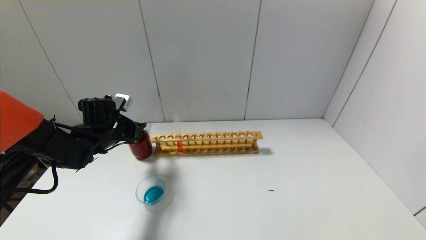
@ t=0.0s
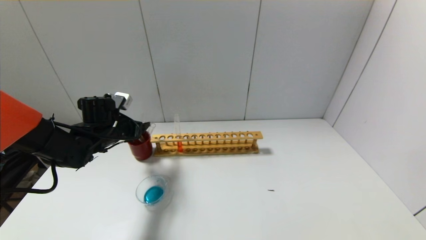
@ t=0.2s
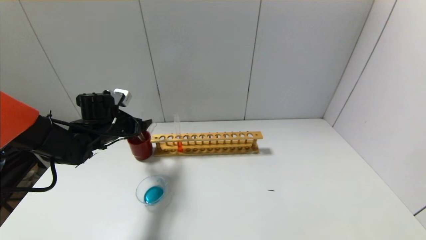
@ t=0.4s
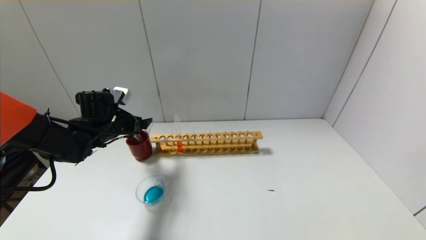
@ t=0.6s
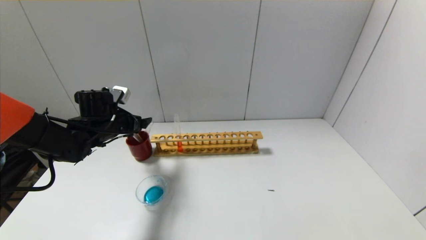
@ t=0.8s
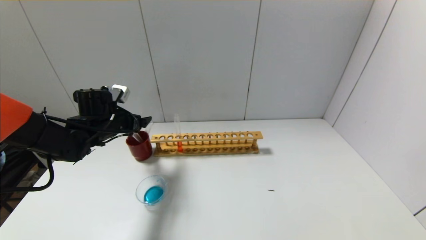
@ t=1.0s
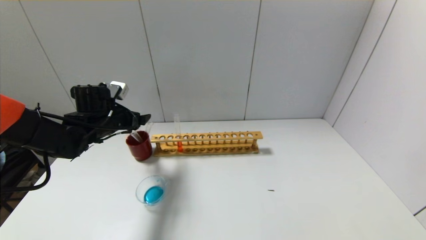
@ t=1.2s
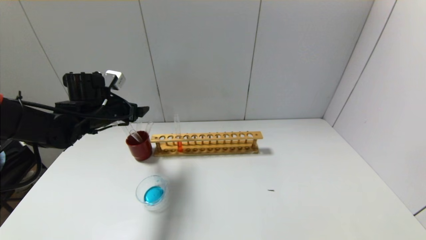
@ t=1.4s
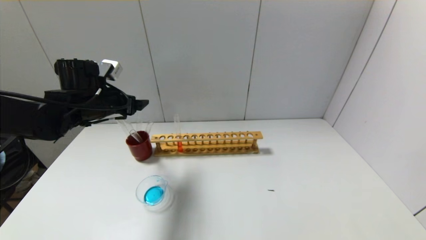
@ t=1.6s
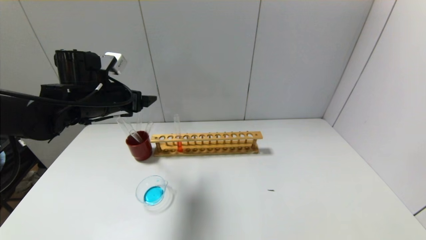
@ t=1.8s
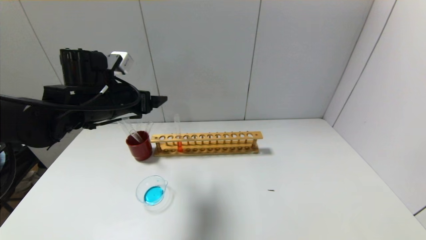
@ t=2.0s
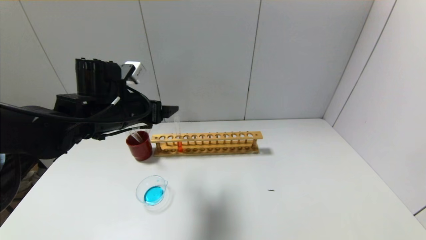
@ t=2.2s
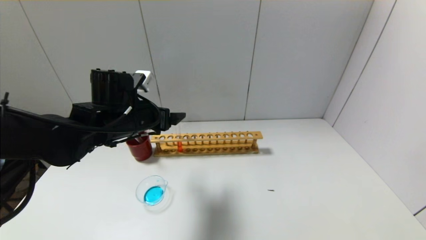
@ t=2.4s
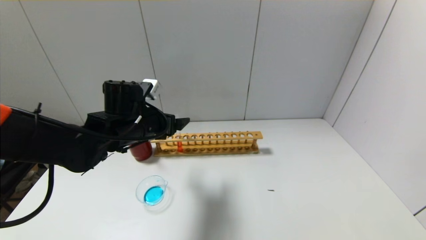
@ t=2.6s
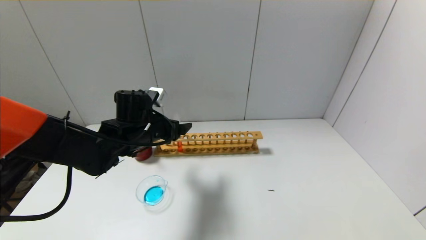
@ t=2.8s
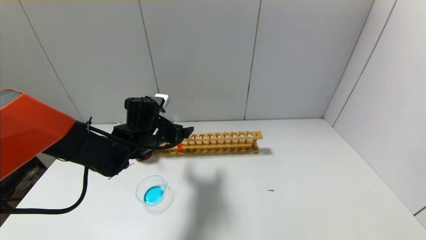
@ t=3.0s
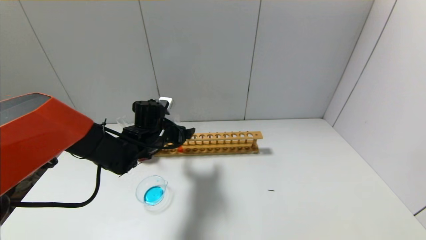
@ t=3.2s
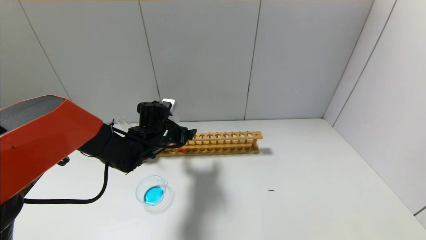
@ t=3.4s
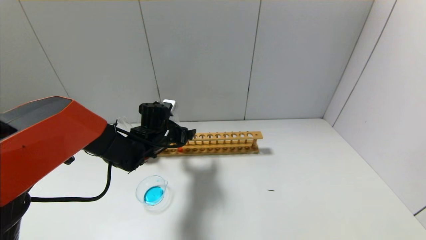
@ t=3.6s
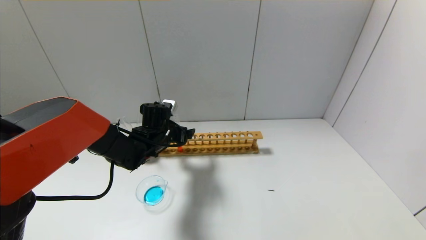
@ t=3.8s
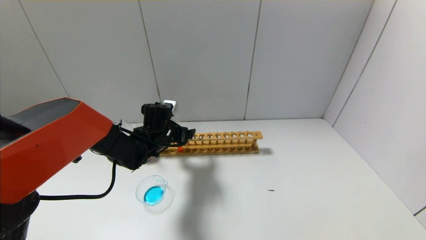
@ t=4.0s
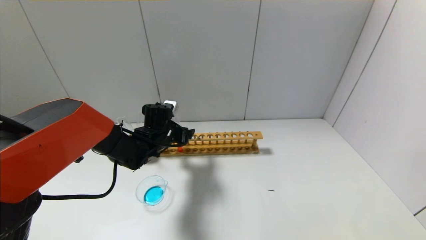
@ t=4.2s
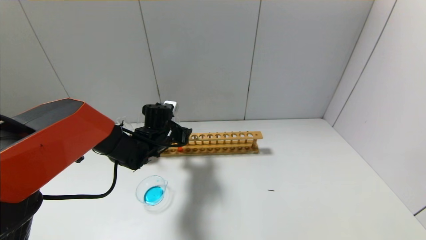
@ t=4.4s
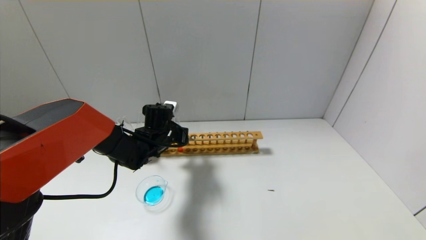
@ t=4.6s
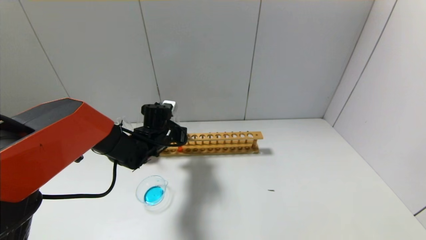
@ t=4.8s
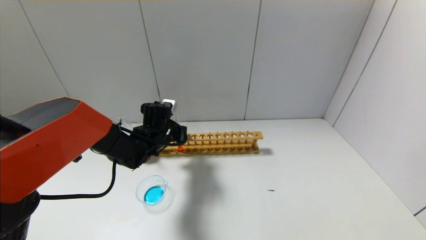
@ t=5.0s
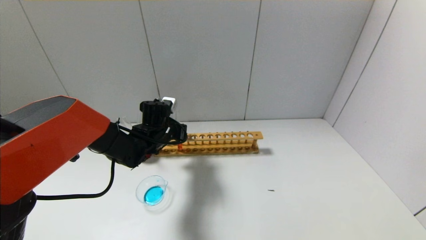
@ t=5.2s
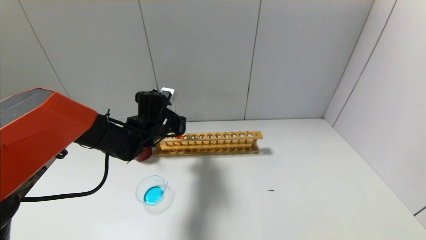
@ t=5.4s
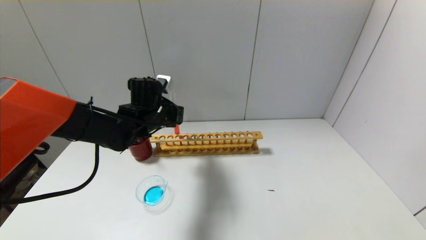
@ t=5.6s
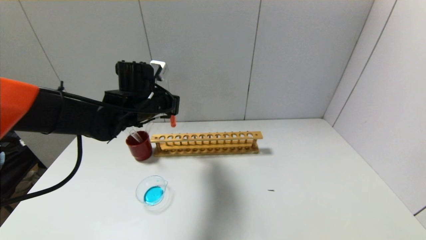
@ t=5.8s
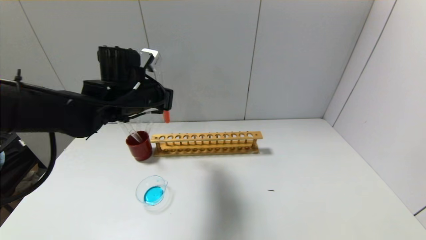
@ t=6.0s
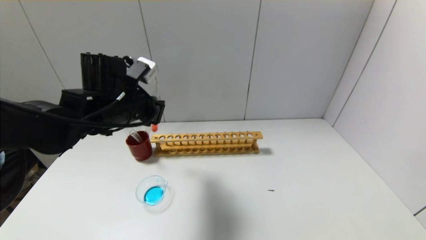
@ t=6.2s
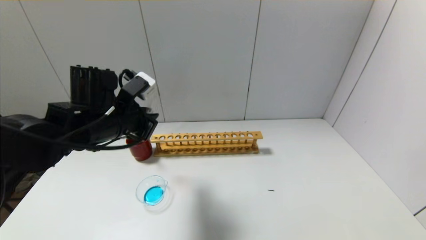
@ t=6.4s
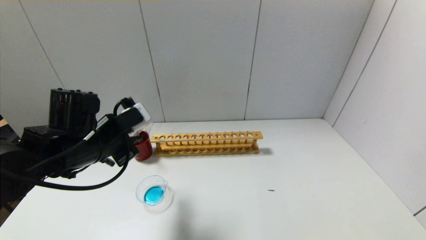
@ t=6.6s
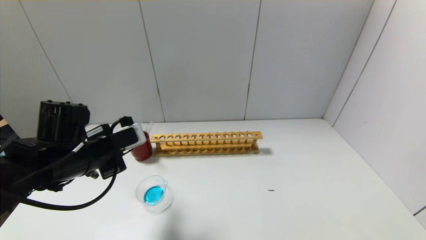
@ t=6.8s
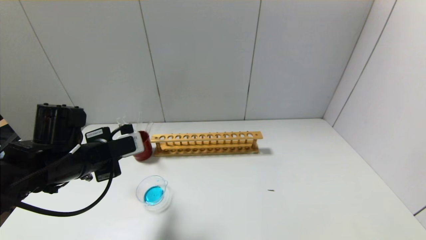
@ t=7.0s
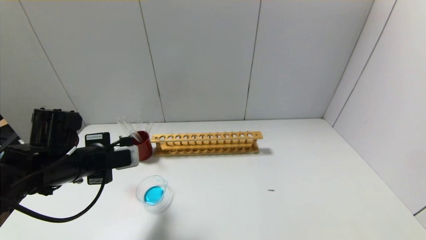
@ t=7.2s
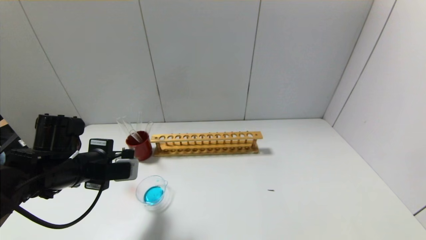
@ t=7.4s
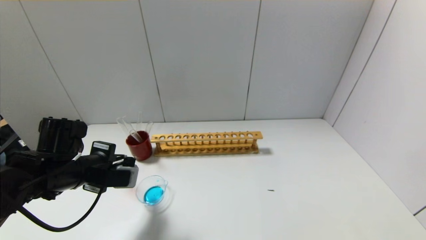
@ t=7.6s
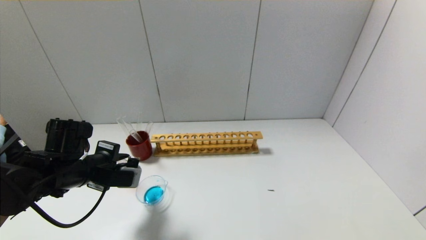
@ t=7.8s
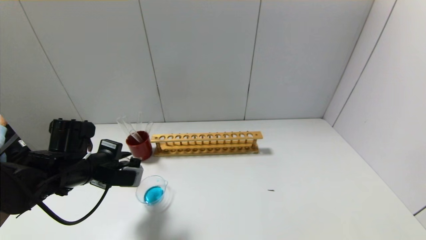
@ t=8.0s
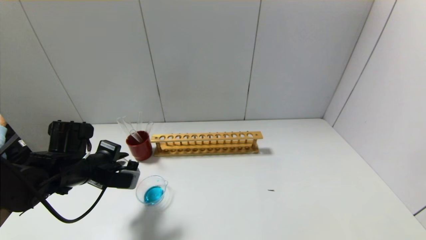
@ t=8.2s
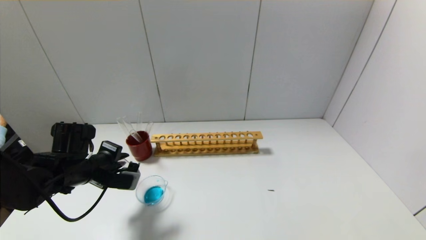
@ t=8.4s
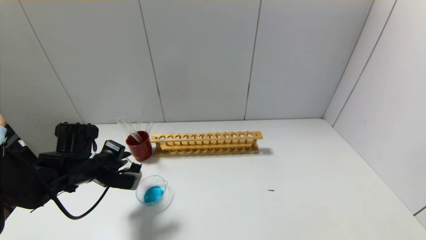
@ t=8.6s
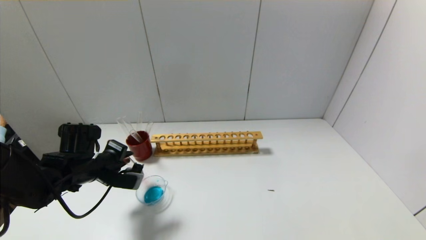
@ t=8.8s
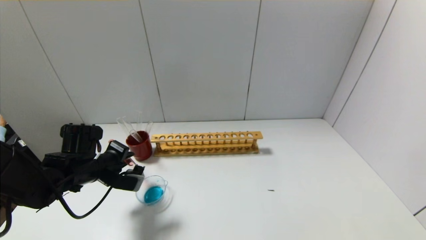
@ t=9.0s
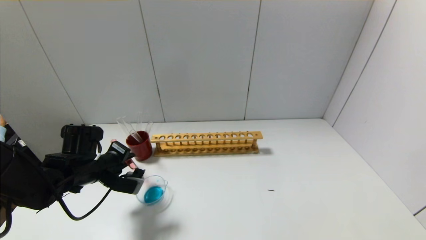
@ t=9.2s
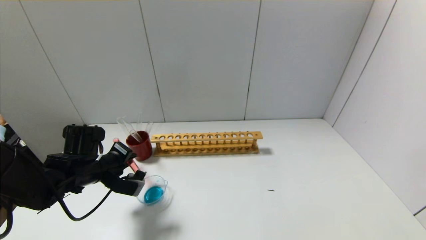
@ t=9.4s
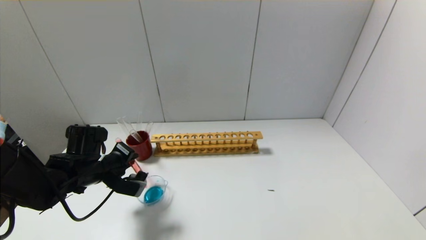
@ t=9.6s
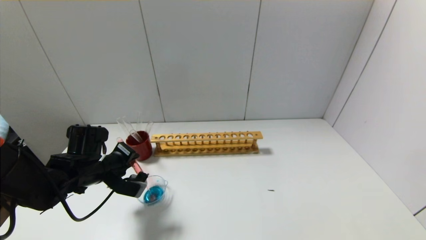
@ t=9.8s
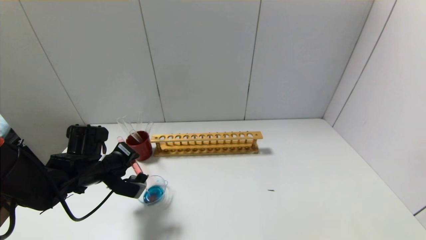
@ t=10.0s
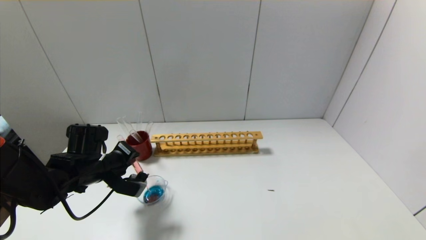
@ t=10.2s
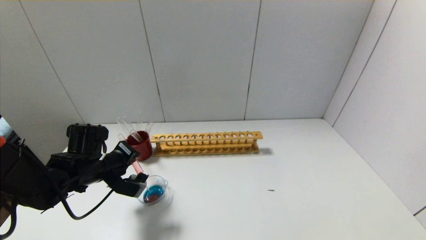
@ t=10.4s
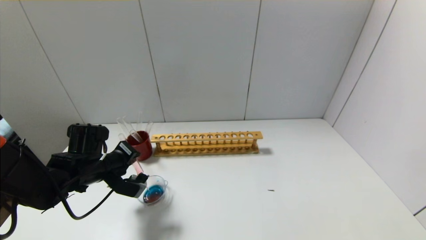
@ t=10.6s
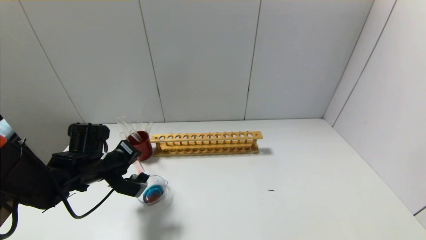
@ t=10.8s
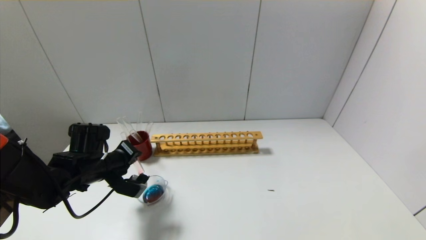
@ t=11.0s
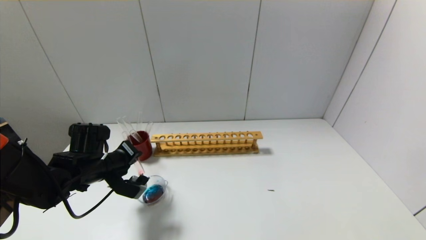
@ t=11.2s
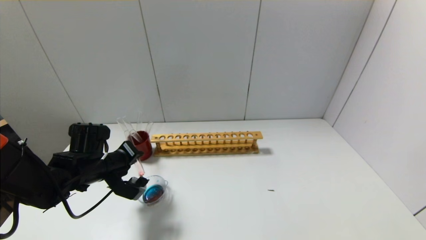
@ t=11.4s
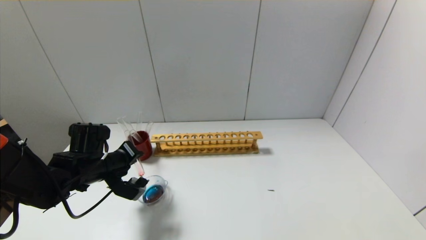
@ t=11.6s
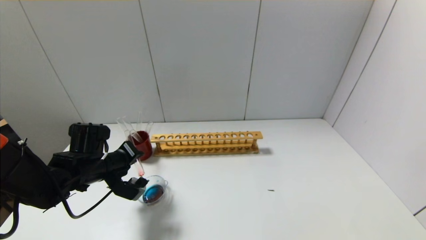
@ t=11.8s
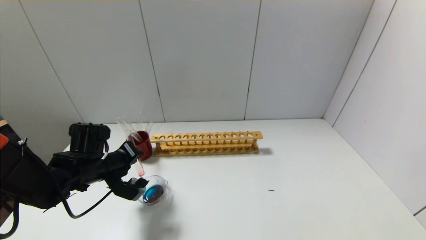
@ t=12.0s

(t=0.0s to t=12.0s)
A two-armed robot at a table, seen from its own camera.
Step, t=0.0s - t=4.8s: Grasp the red reagent with the left gripper.
t=0.0s - t=1.6s: The left gripper goes approximately 10 cm upward, and opens.
t=1.6s - t=3.0s: The left gripper shifts about 15 cm to the right and downward.
t=3.0s - t=4.4s: The left gripper ends up about 5 cm from where it was.
t=4.4s - t=6.0s: The left gripper moves upward, about 15 cm, and closes its fingers.
t=6.0s - t=7.6s: The left gripper travels downward, to the left and backward by some 15 cm.
t=7.6s - t=9.0s: The left gripper moves approximately 5 cm.
t=9.0s - t=10.4s: There are only small adjustments of the grippers.
t=10.4s - t=12.0s: There are only small adjustments of the grippers.

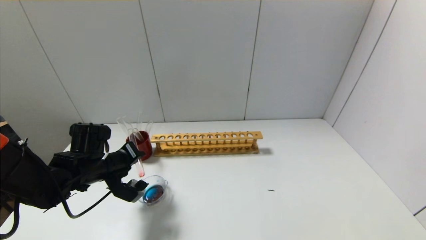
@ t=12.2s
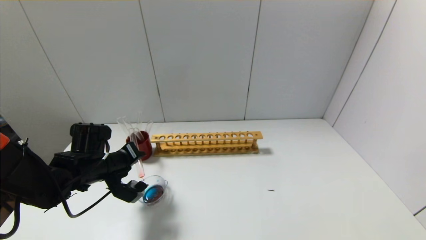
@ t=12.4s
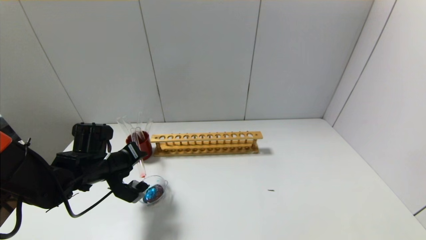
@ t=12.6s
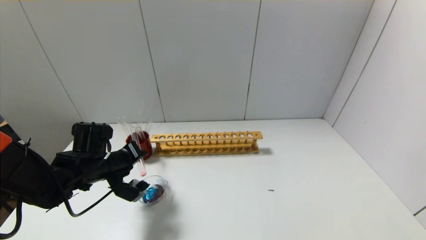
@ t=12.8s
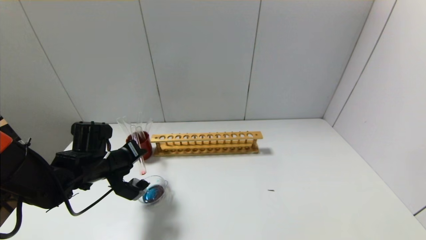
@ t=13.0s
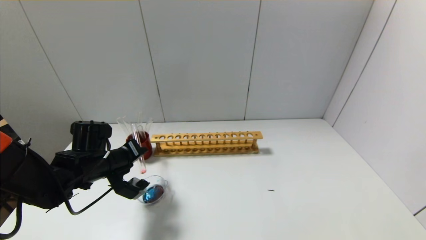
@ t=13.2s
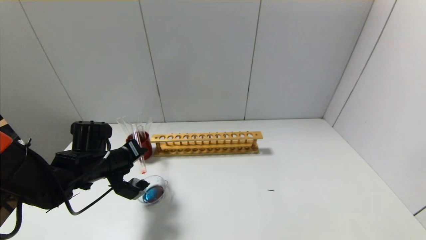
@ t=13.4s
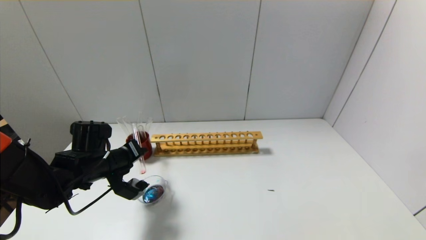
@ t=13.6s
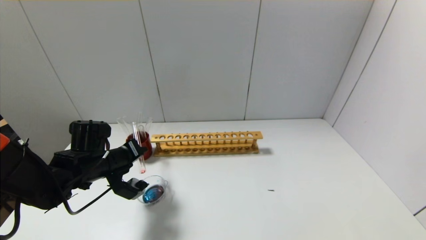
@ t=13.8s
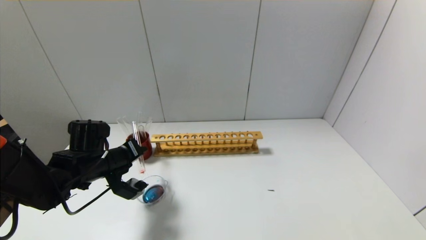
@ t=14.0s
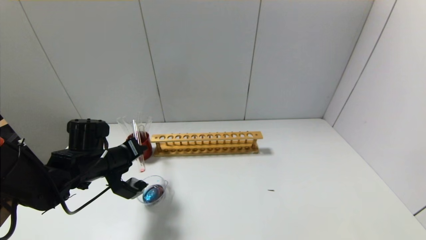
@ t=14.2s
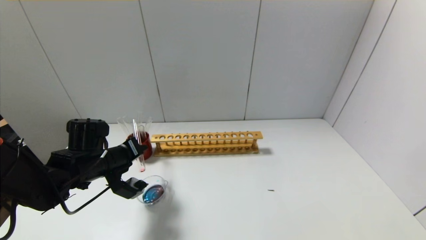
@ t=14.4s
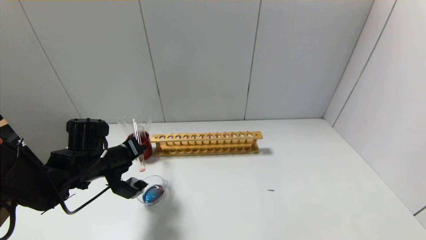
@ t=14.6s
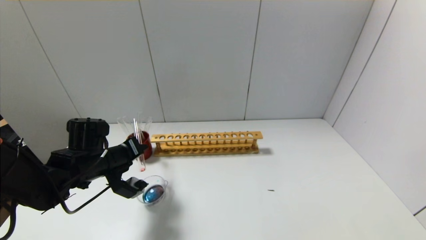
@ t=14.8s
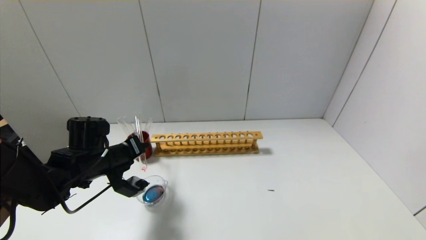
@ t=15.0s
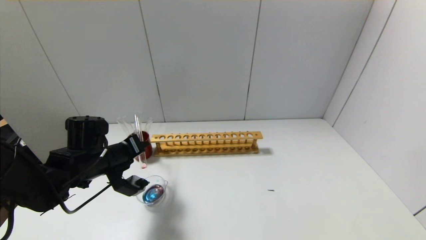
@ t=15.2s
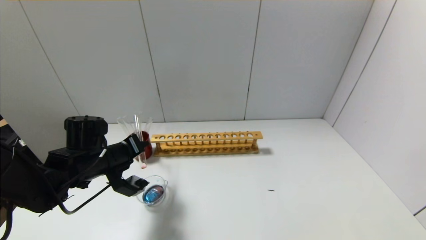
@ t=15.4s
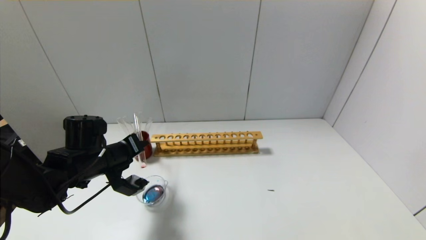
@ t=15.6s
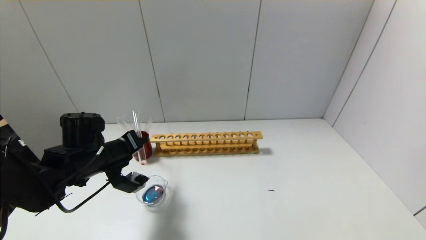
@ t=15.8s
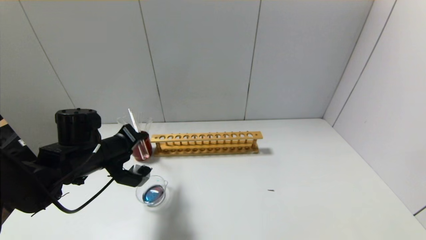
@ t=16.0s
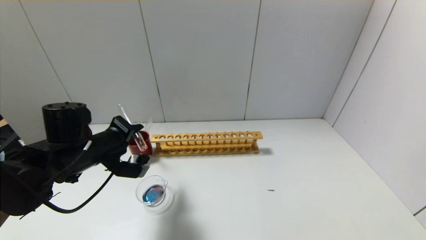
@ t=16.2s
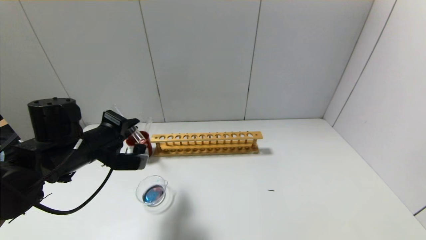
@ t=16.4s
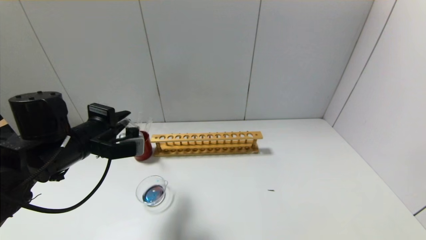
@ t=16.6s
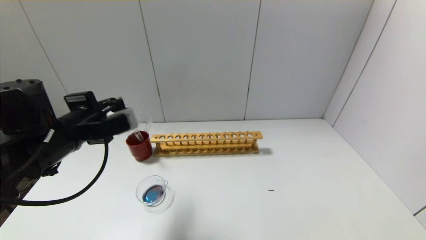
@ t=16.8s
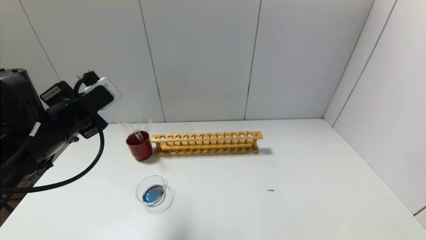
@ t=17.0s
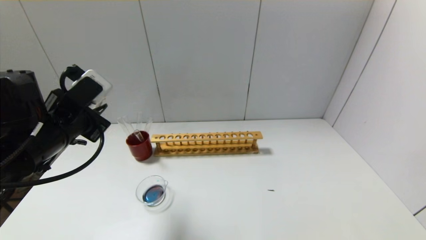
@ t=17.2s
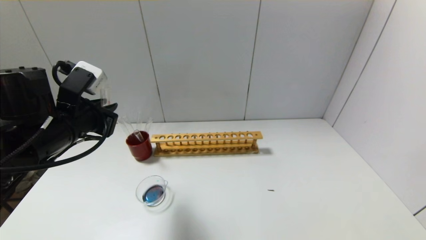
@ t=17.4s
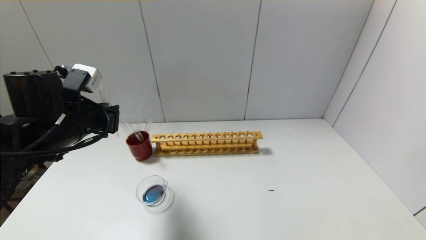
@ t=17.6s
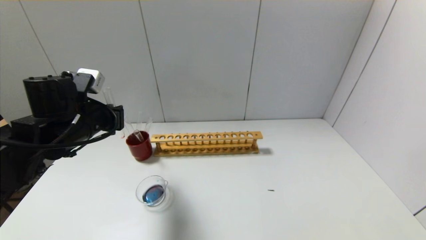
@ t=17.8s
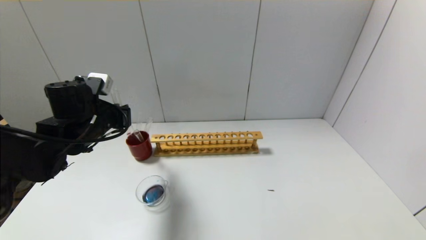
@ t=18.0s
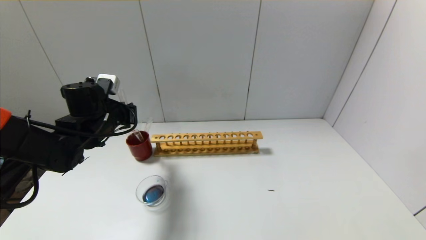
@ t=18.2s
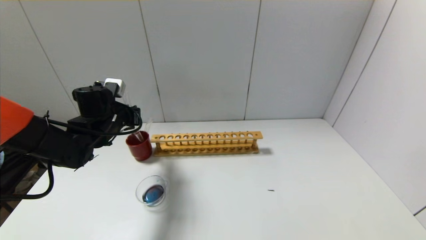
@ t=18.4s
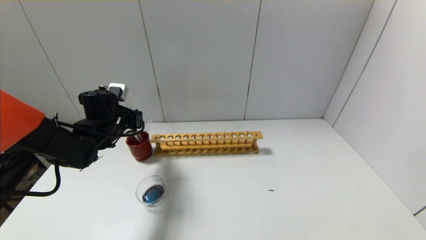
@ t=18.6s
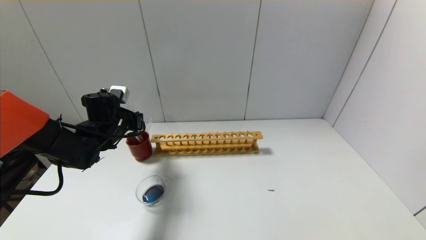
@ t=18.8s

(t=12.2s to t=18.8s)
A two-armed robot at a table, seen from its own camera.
Step, t=12.2s - t=16.2s: Pour the red reagent into the graduated cylinder with the left gripper.
t=12.2s - t=15.4s: The grippers move only a little.
t=15.4s - t=17.2s: The left gripper is displaced upward and backward by some 10 cm.
t=17.2s - t=18.8s: The left gripper travels forward and downward by approximately 15 cm.
